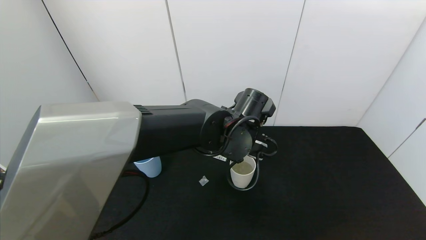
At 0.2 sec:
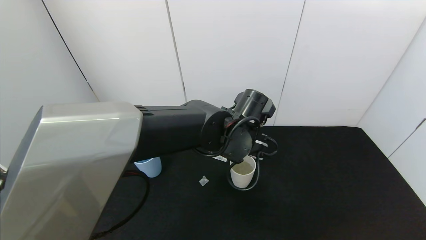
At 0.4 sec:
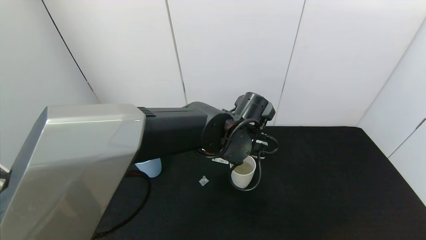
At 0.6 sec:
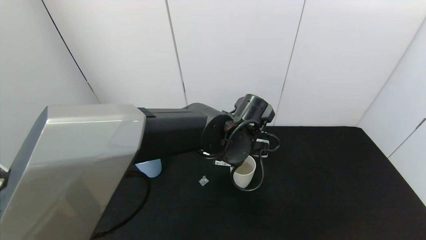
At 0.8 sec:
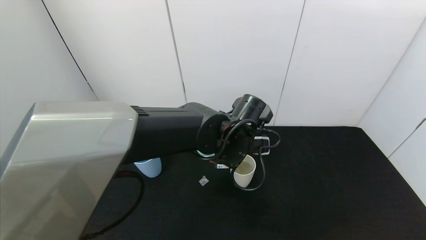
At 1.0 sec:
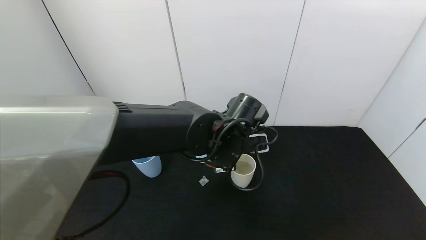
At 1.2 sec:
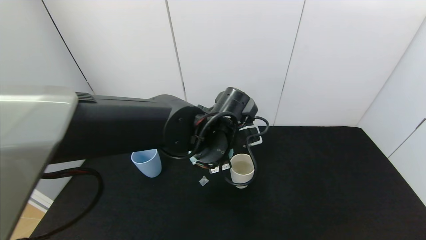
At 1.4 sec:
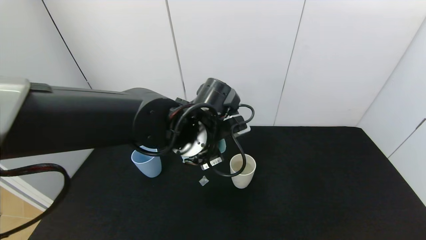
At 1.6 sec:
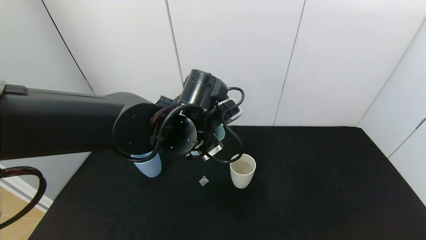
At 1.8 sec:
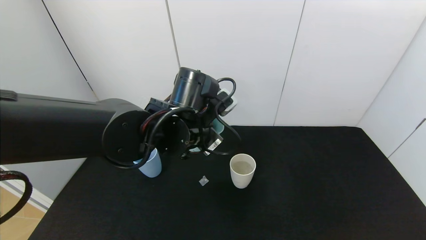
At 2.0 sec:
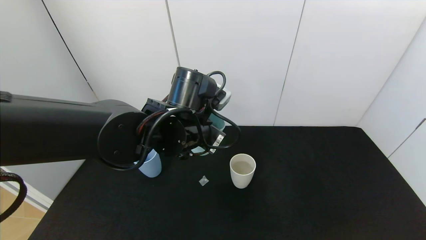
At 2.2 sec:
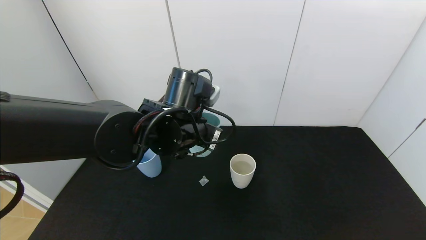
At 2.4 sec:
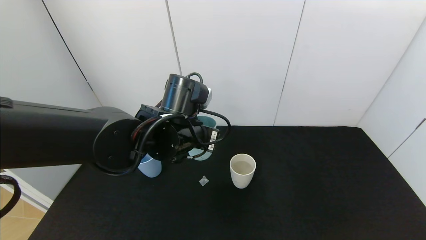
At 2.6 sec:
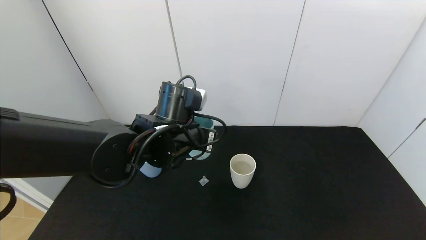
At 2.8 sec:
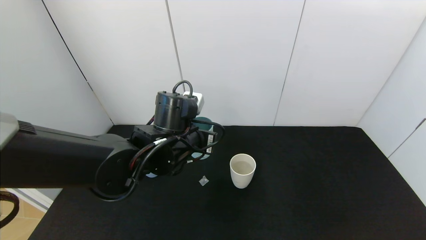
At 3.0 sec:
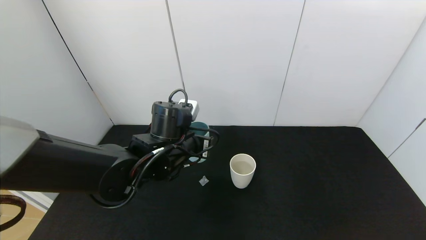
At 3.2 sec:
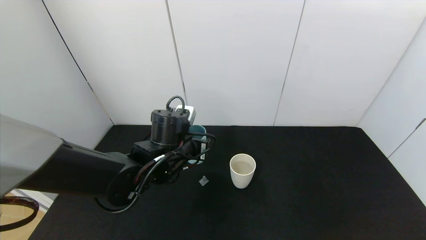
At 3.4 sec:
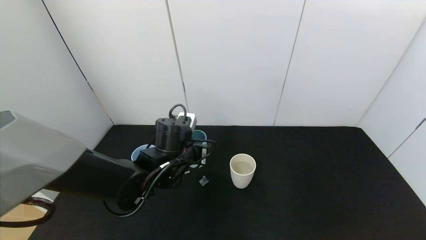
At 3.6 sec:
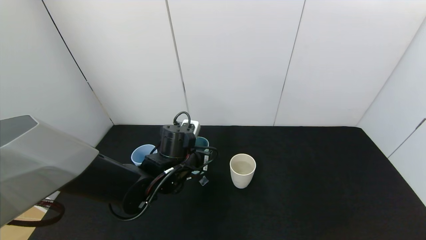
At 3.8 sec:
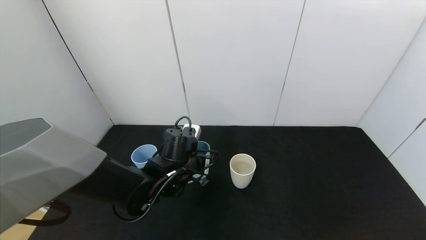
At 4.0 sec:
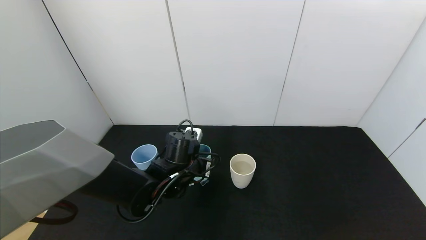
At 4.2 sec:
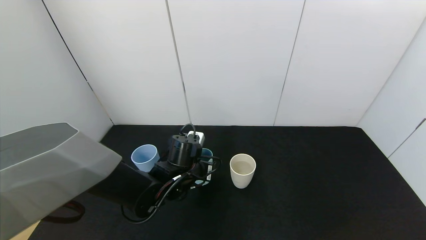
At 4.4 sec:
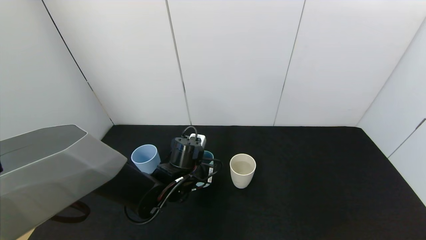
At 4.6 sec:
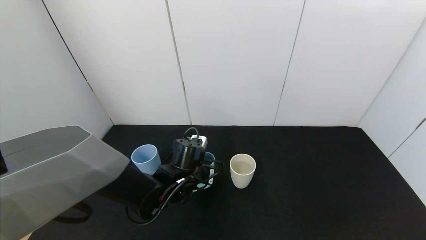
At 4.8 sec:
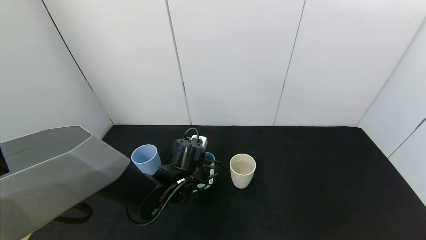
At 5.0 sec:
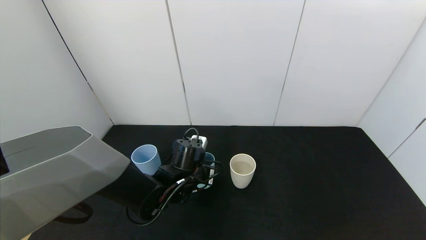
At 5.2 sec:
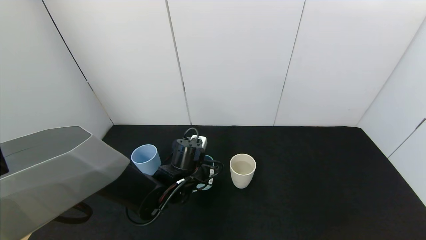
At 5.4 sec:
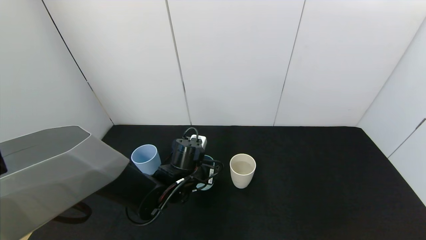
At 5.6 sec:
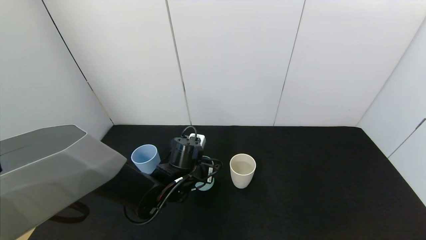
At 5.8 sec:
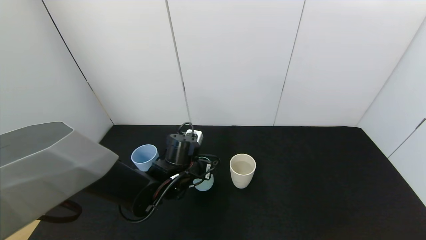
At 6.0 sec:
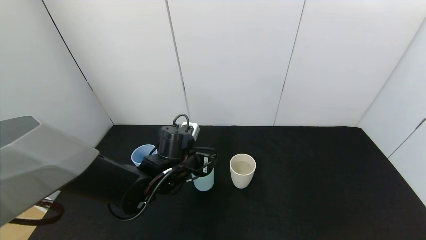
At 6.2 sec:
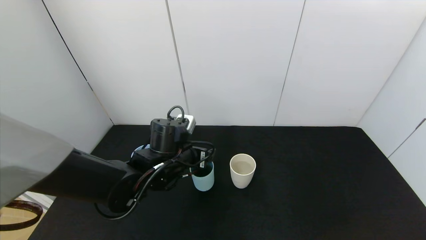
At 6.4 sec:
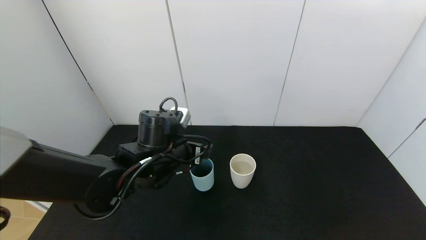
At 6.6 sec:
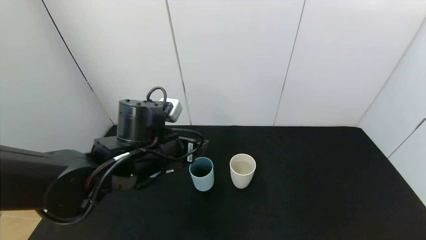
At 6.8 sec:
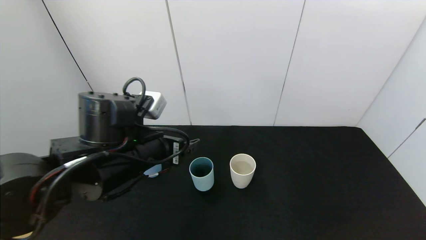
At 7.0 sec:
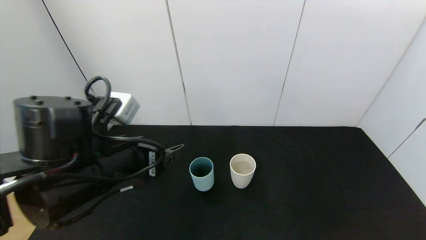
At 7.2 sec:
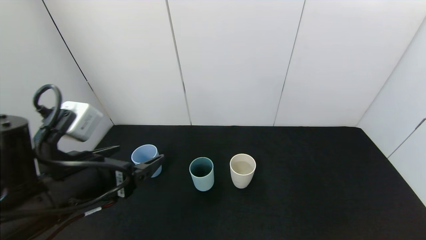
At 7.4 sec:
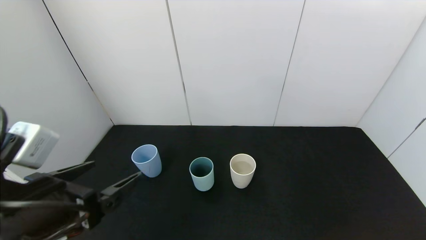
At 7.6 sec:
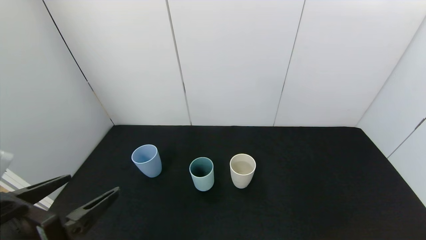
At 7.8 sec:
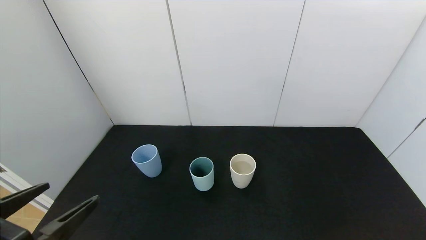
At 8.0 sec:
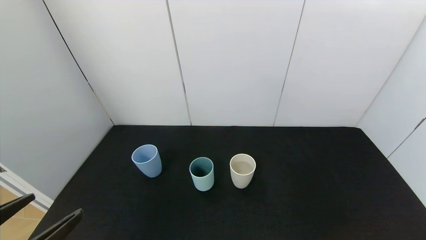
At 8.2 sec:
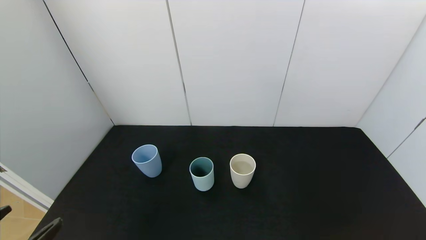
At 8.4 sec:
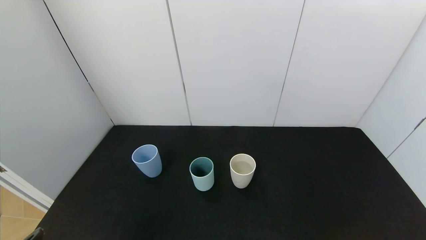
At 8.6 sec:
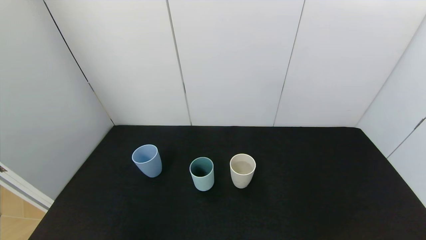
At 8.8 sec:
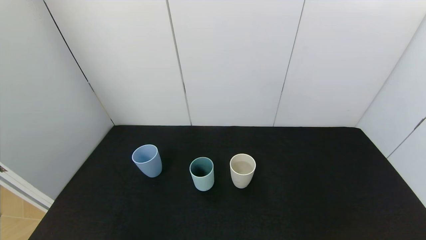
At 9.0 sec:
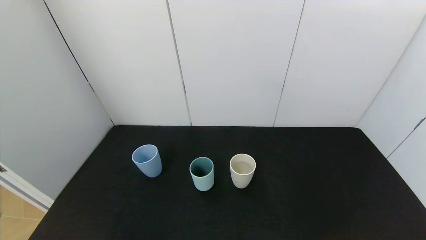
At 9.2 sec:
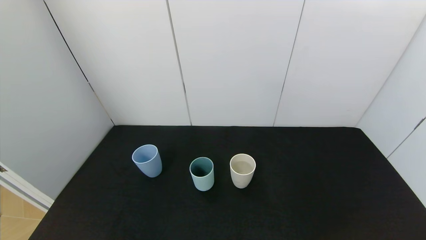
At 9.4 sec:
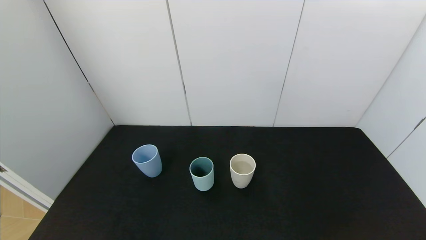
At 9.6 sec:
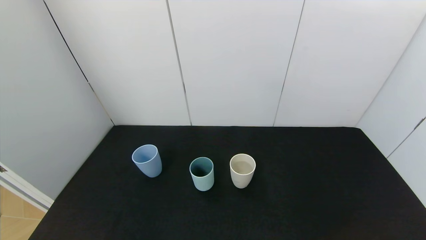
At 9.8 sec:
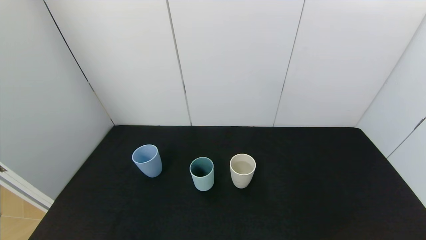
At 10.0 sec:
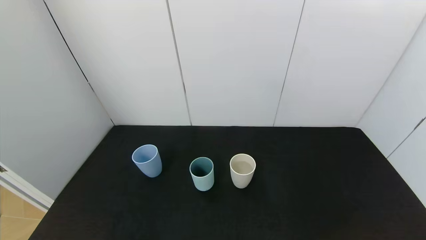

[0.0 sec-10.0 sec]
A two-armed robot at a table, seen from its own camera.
Task of the whole recording: use the gripper to pour the water into the other two cups on black table.
Step, 1.4 sec to 6.2 sec: Place the green plastic cup on the table with left gripper.
0.0 sec to 1.4 sec: The left gripper moves to the left, roughly 5 cm.
2.8 sec to 4.2 sec: The left gripper is displaced downward by about 10 cm.
4.2 sec to 5.8 sec: The left gripper opens its fingers.
5.8 sec to 7.2 sec: The left gripper goes some 25 cm backward, upward and to the left.
7.2 sec to 8.6 sec: The left gripper travels backward, to the left and downward by about 20 cm.
